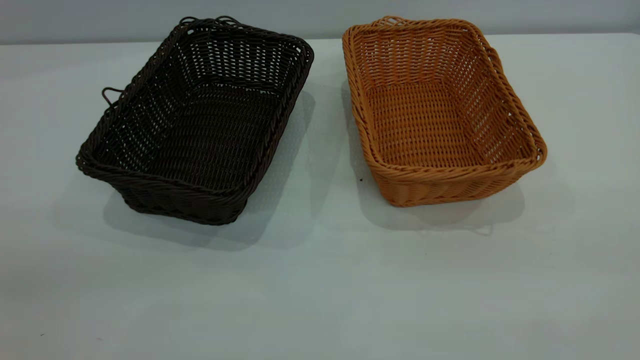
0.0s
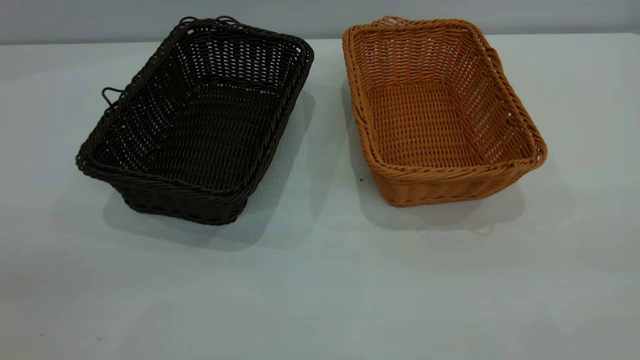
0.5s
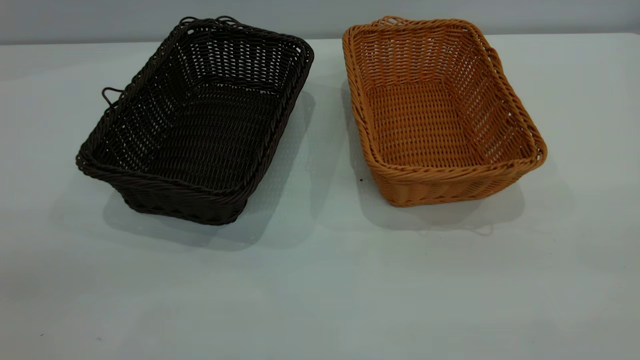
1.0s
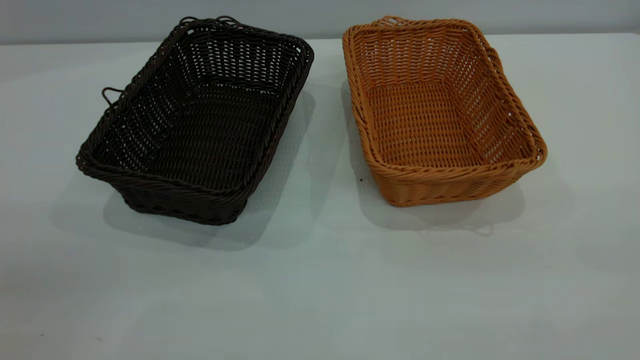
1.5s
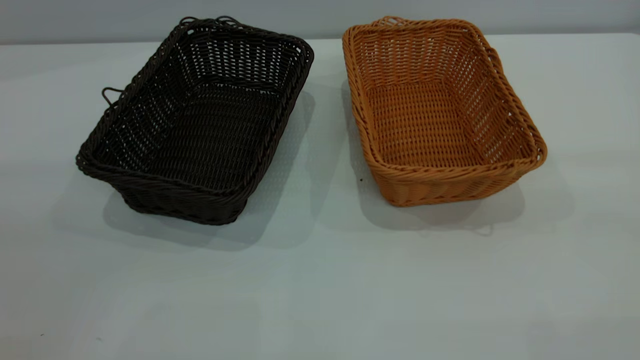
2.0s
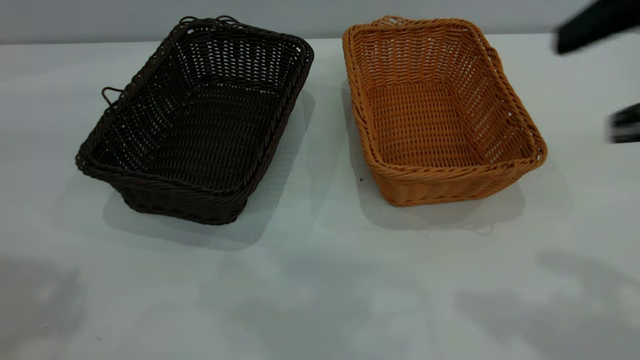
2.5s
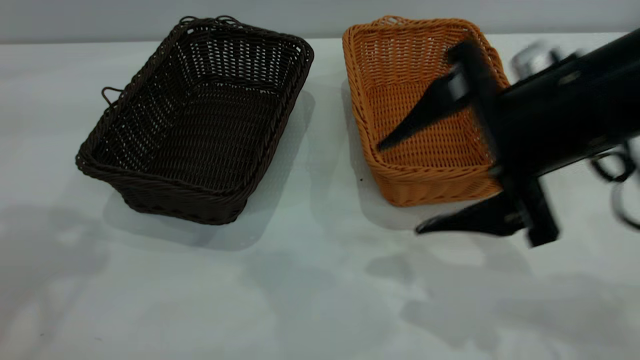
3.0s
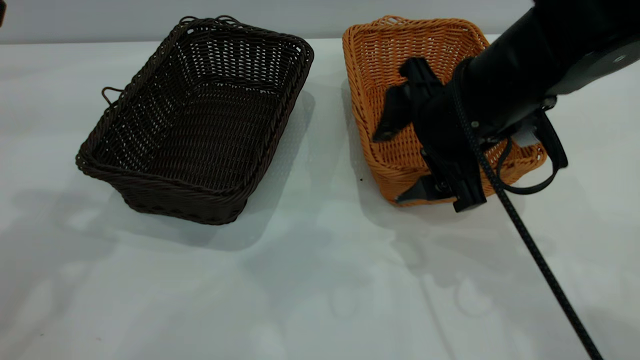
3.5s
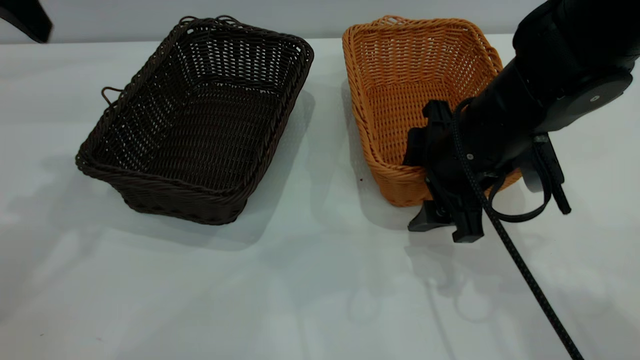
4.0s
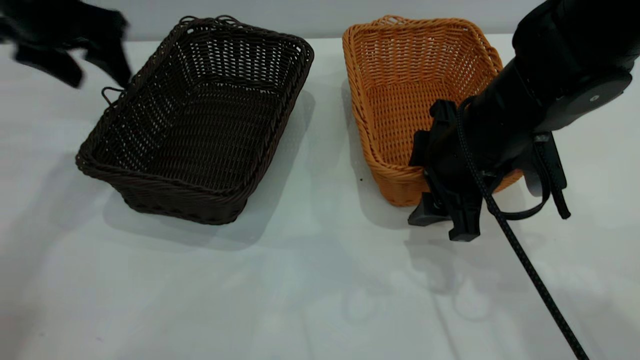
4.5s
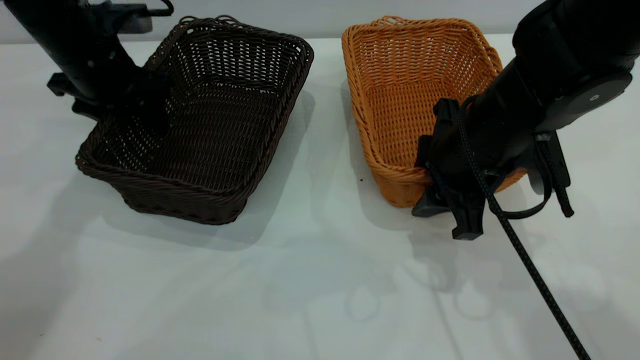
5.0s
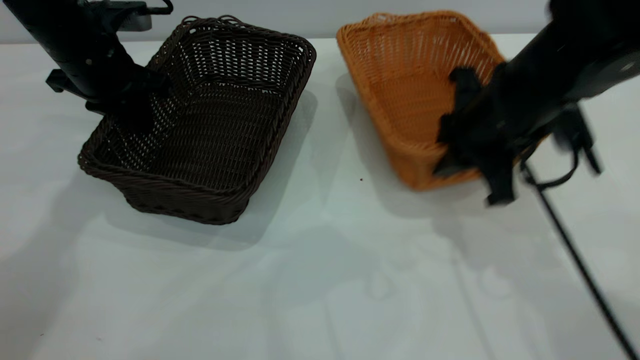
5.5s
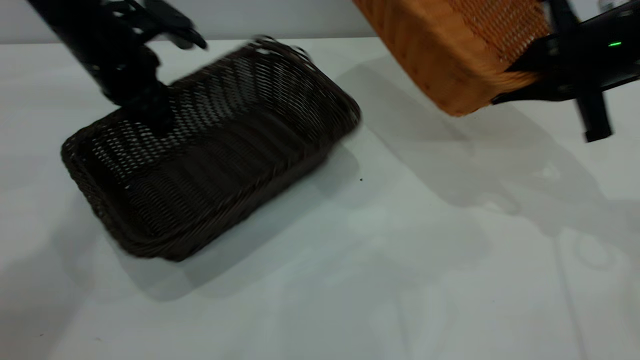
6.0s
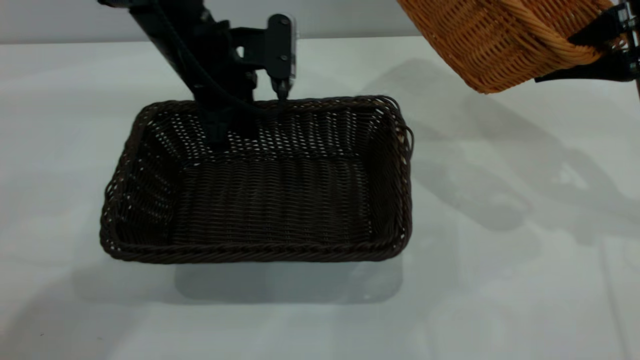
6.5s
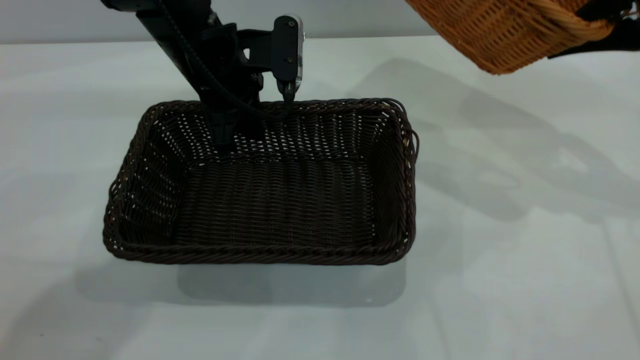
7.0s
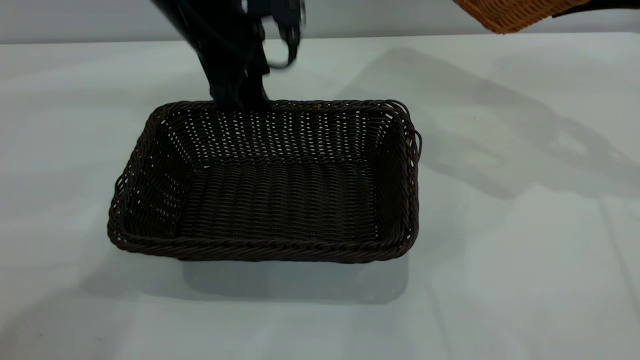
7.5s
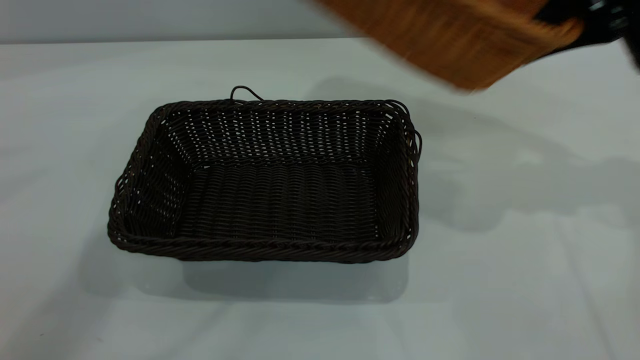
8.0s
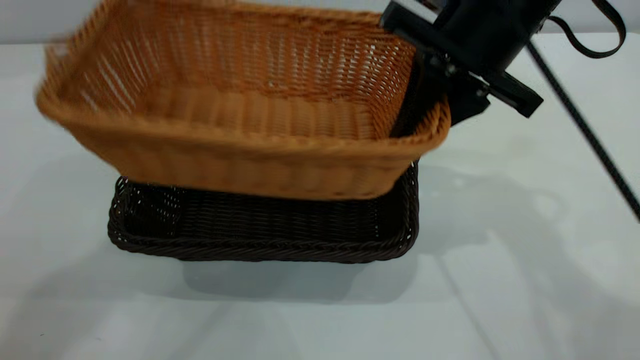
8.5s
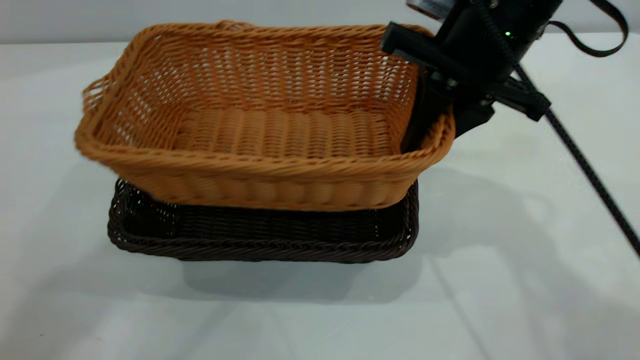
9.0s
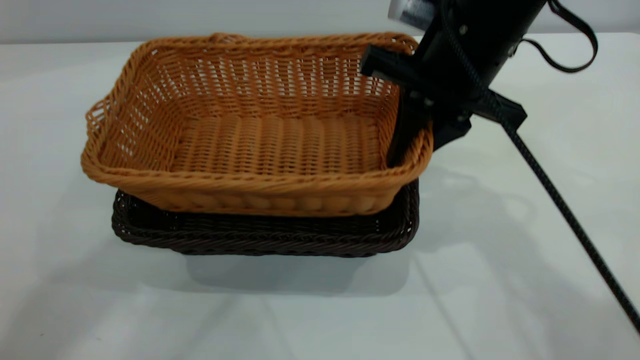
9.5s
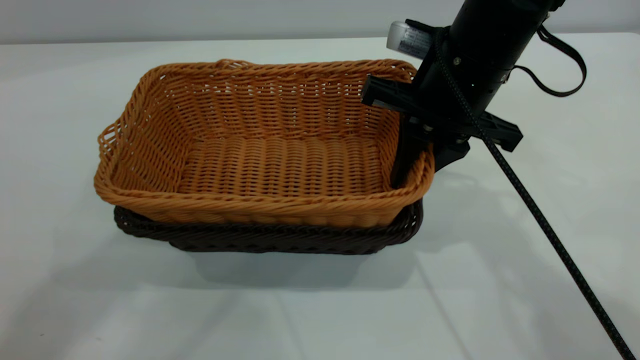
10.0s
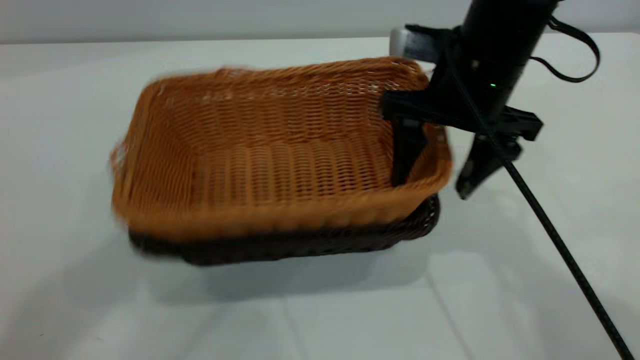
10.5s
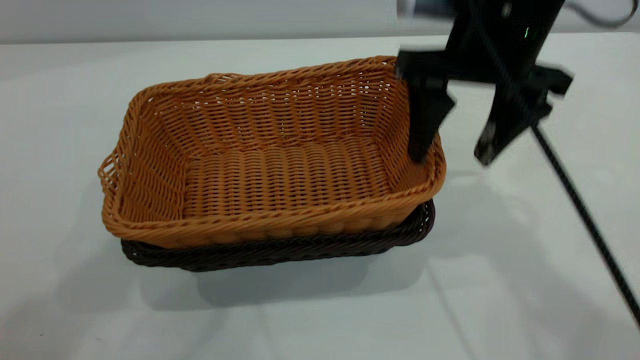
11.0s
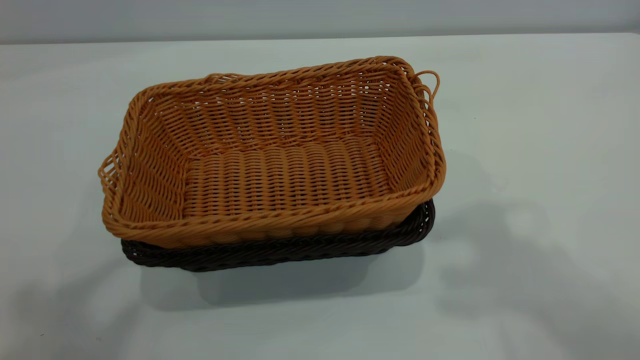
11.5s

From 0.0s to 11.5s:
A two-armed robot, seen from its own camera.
Task of the whole recording: the left gripper grasp the black basket and place it in the center of the table, the right gripper grasp the brown basket and place it inside the black one.
Step, from 0.0s to 5.5s: Pick up the light basket with the right gripper.
Step, from 6.0s to 7.5s: Move the dark basket to the center of view.
Step, from 8.0s to 11.0s: Place the light basket on the dark basket.
From 2.0s to 4.0s: The right gripper goes some 35 cm downward, forward and to the left, while the left gripper is displaced forward by approximately 30 cm.
From 4.0s to 6.0s: The left gripper moves downward, forward and to the right, roughly 20 cm, and closes up, while the right gripper shifts some 15 cm to the right and upward, and closes.
From 6.0s to 7.5s: The right gripper travels upward by roughly 5 cm. Meanwhile the left gripper moves to the right and upward, roughly 10 cm, and opens up.
From 7.5s to 9.5s: The right gripper is displaced to the left by roughly 20 cm. Meanwhile the left gripper goes approximately 30 cm upward.
From 9.5s to 11.5s: The left gripper travels backward, to the left and upward by approximately 20 cm; the right gripper heads upward and backward, covering approximately 25 cm, and opens up.

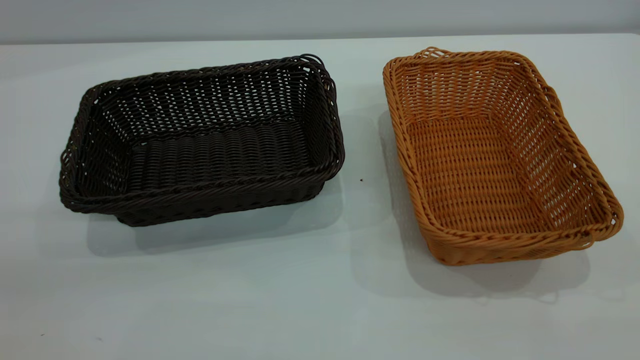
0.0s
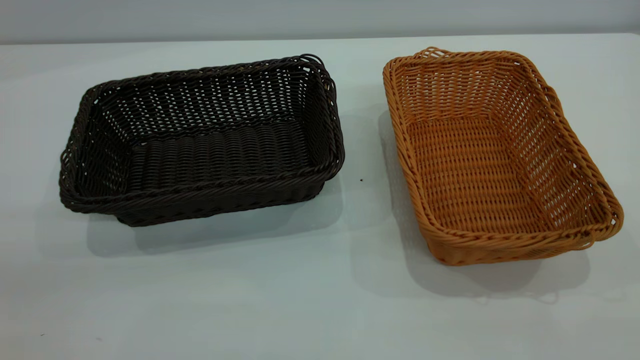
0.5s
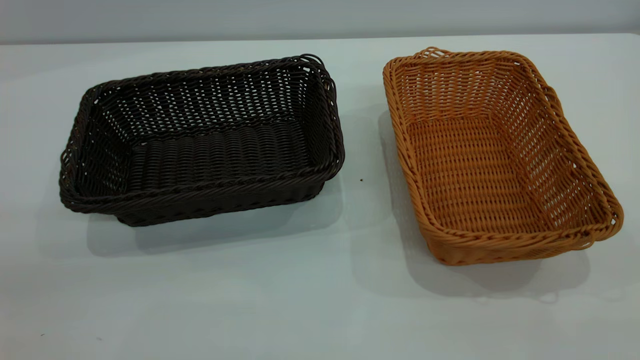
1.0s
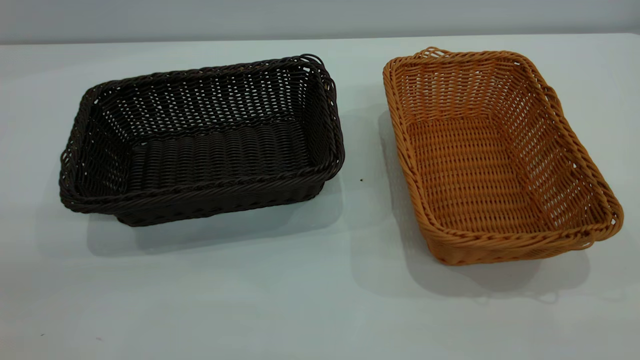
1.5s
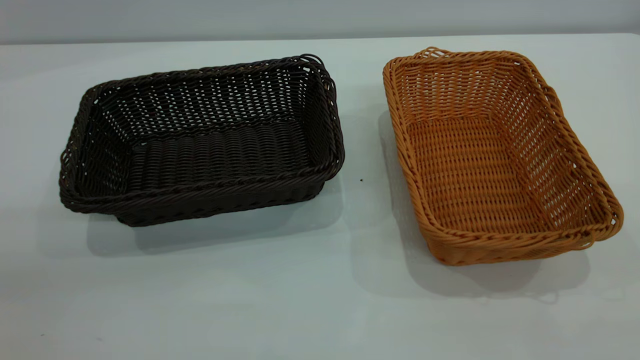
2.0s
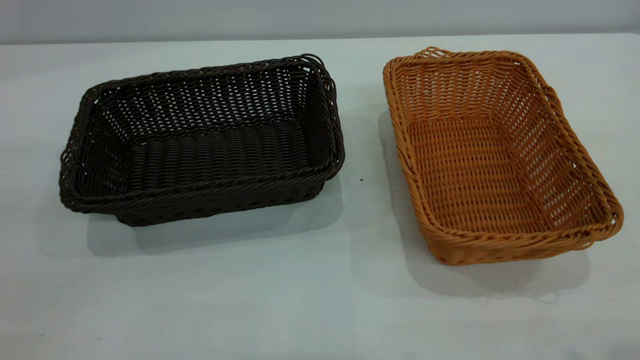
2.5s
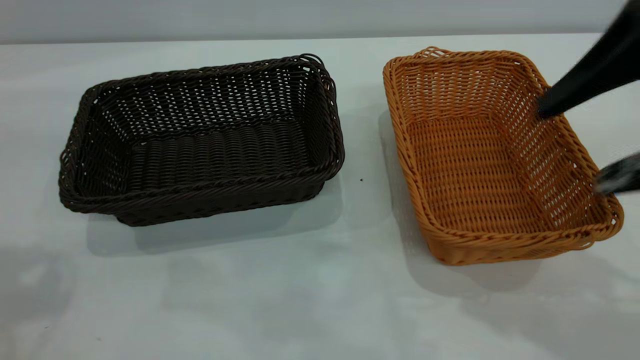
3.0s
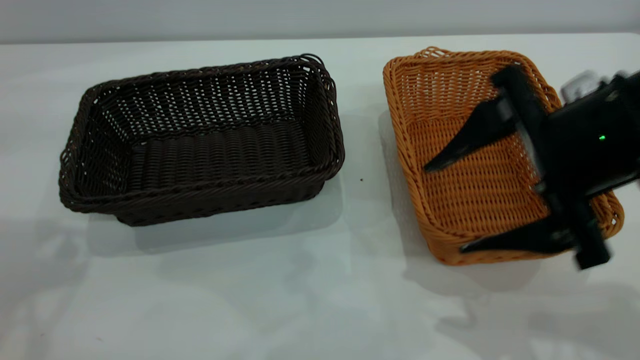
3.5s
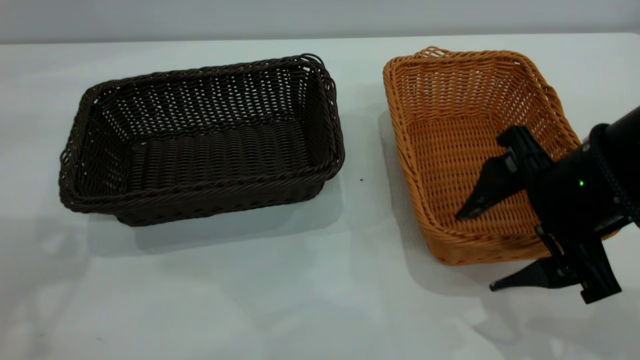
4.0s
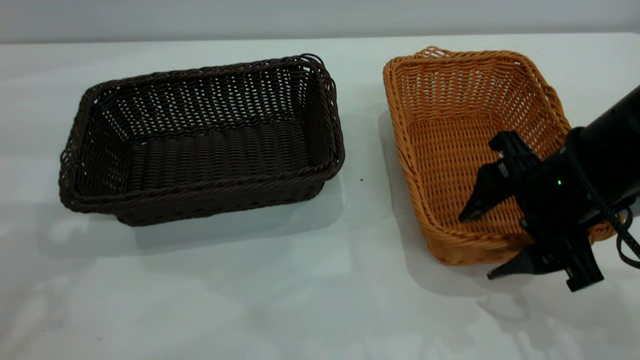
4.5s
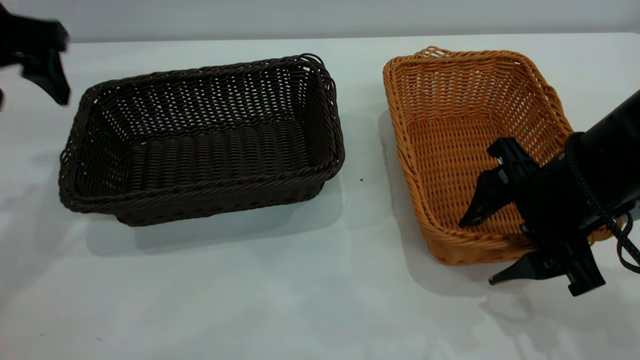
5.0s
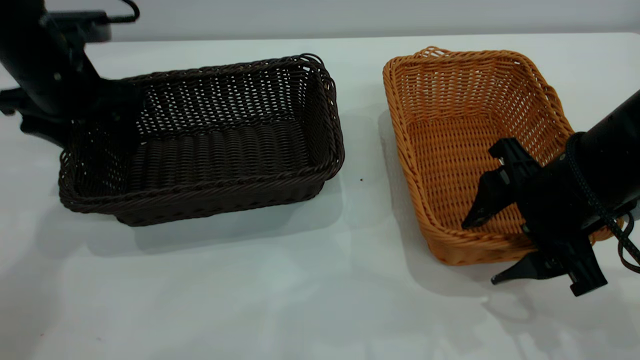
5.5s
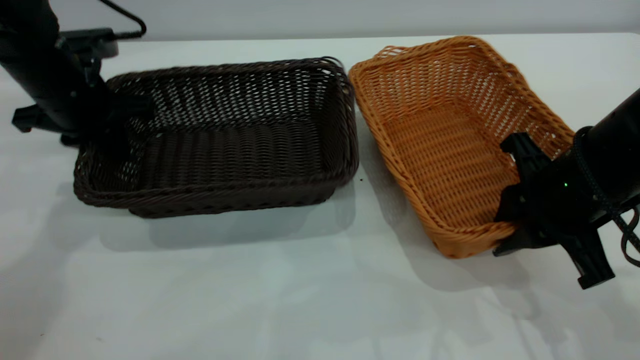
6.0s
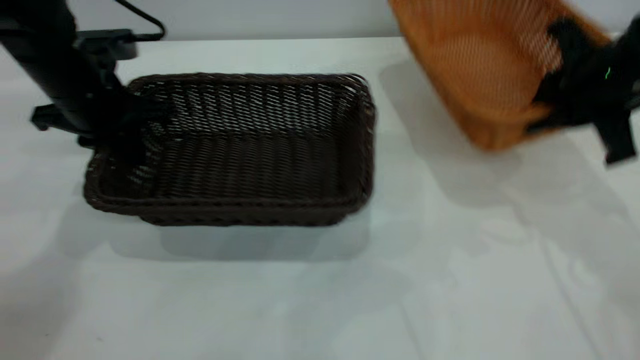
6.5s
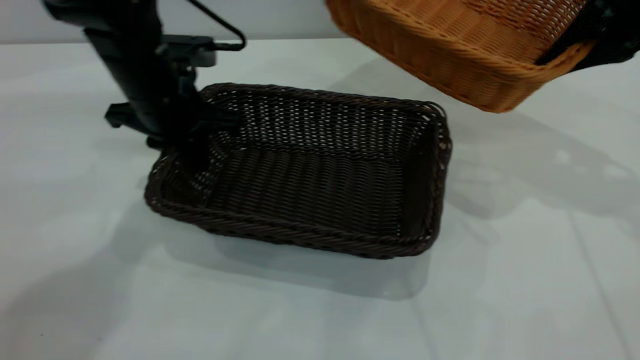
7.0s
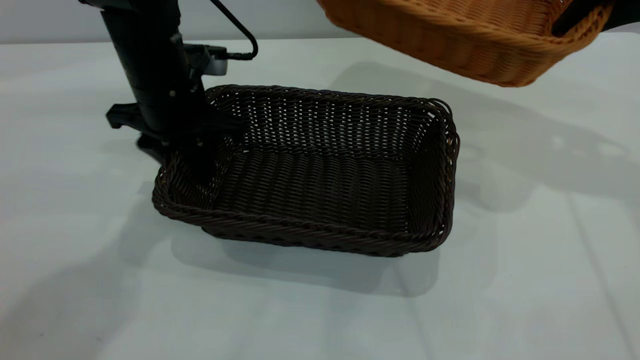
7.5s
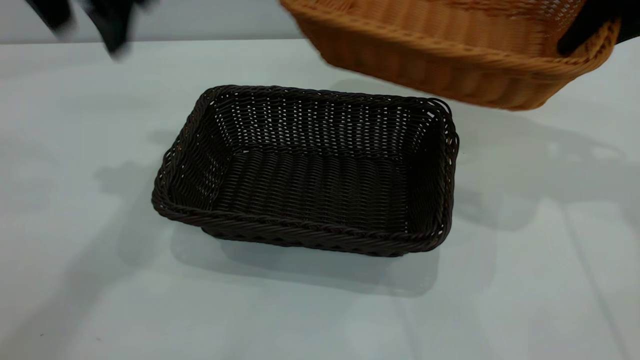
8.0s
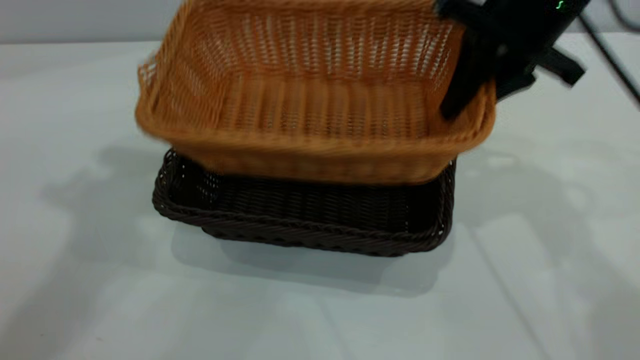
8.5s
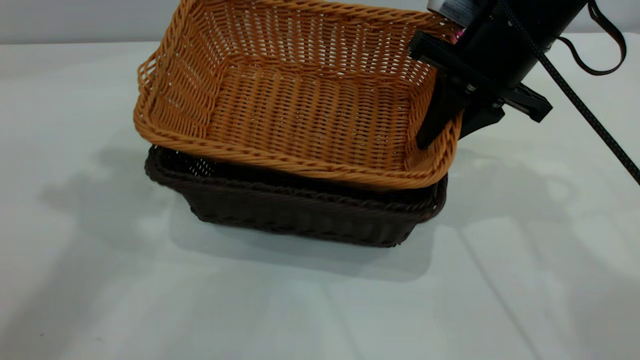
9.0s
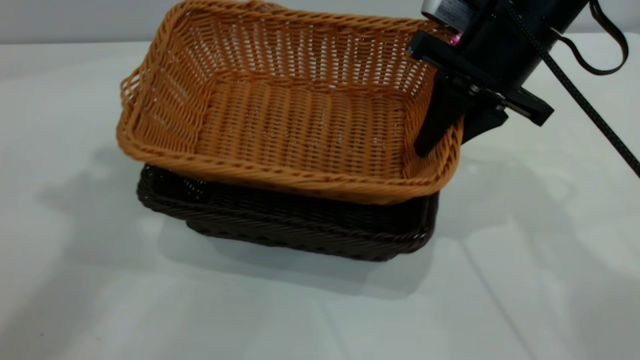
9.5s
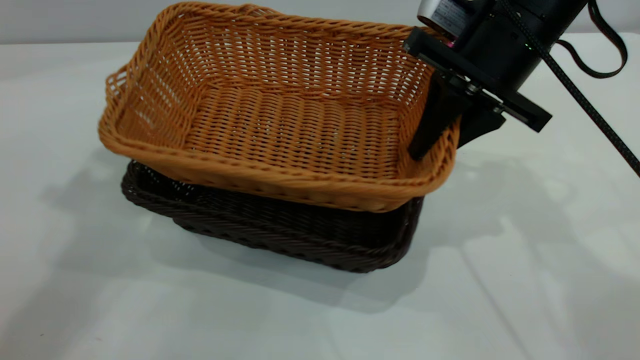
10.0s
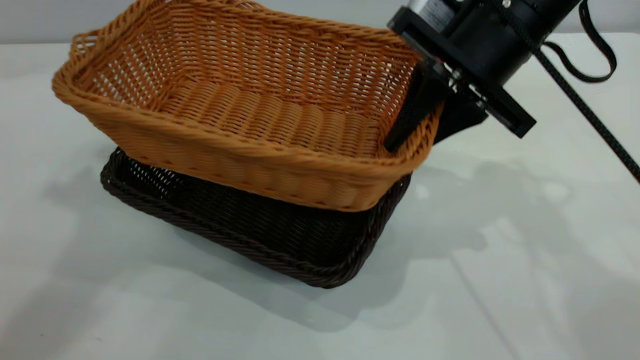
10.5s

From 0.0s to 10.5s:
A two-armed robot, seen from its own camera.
Task of the whole recording: the left gripper grasp the black basket and place it in the center of the table, the right gripper grasp the brown basket and place it inside the black one.
Step, from 0.0s to 6.0s: Pick up the light basket with the right gripper.
Step, from 7.0s to 7.5s: Move the dark basket to the center of view.
From 0.0s to 2.0s: Neither gripper changes place.
From 2.0s to 4.0s: The right gripper moves forward and downward, roughly 30 cm.
From 4.0s to 6.5s: The left gripper is displaced downward and forward by approximately 25 cm, and closes its fingers, while the right gripper moves forward and to the right, approximately 10 cm, and closes its fingers.
From 6.5s to 8.5s: The left gripper is displaced upward by about 30 cm, and opens, while the right gripper heads to the left, covering approximately 10 cm.
